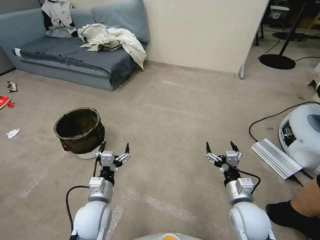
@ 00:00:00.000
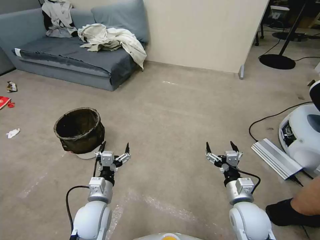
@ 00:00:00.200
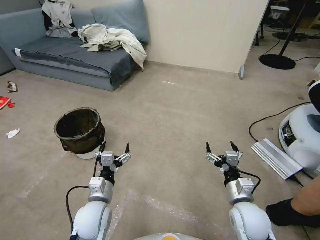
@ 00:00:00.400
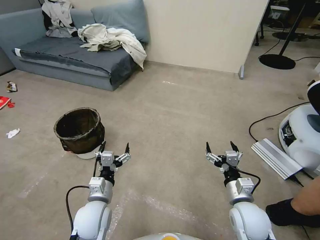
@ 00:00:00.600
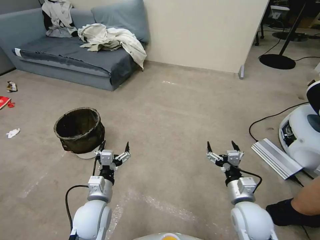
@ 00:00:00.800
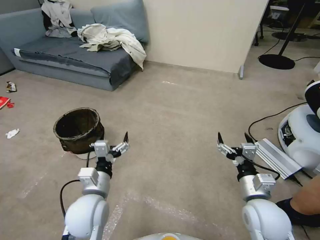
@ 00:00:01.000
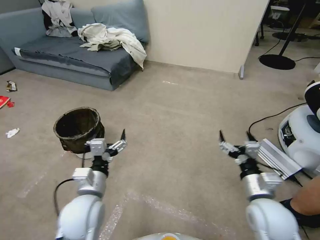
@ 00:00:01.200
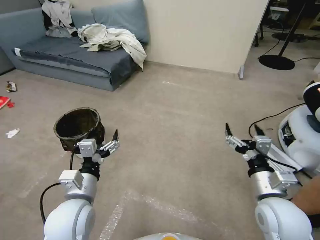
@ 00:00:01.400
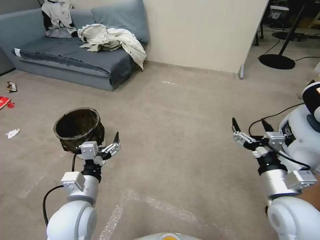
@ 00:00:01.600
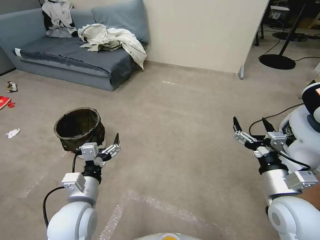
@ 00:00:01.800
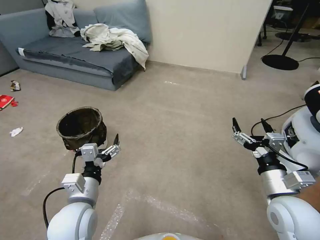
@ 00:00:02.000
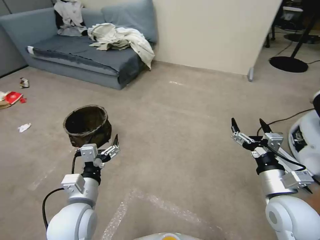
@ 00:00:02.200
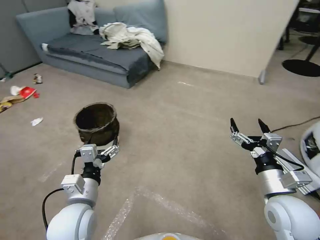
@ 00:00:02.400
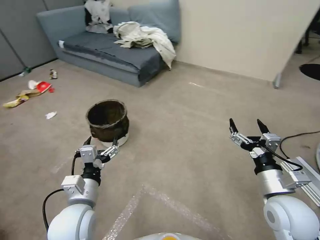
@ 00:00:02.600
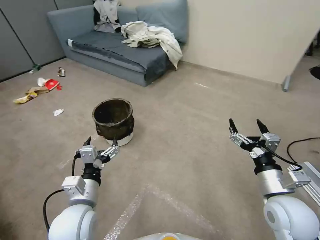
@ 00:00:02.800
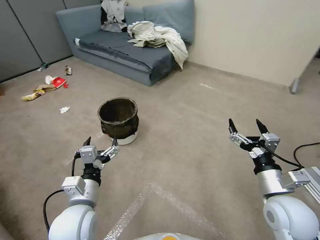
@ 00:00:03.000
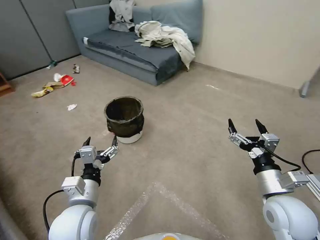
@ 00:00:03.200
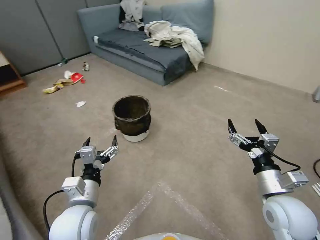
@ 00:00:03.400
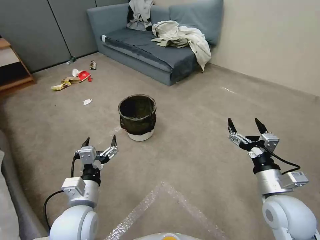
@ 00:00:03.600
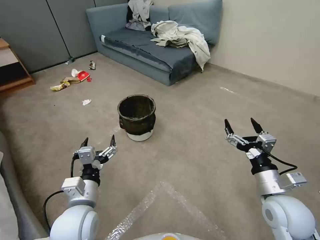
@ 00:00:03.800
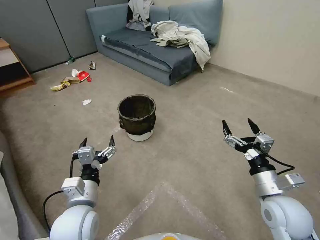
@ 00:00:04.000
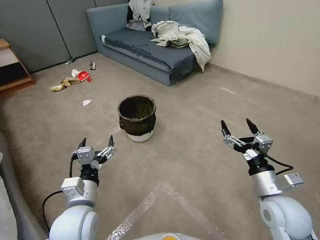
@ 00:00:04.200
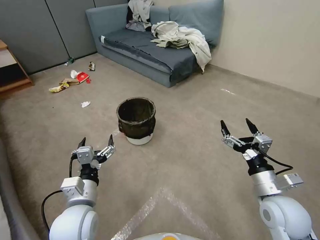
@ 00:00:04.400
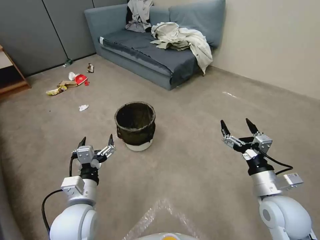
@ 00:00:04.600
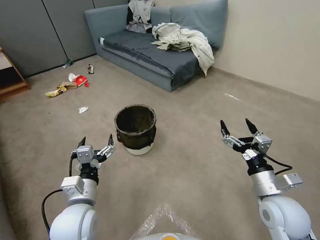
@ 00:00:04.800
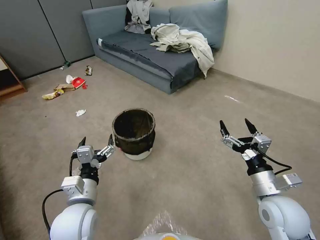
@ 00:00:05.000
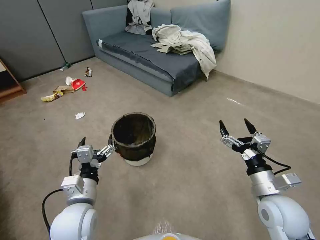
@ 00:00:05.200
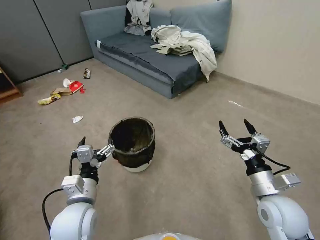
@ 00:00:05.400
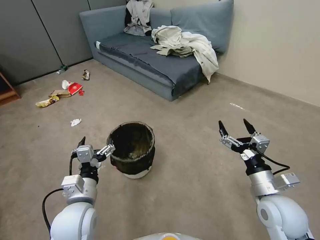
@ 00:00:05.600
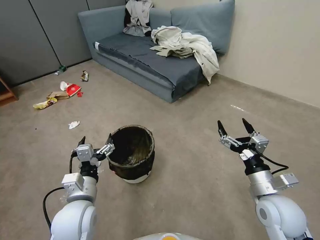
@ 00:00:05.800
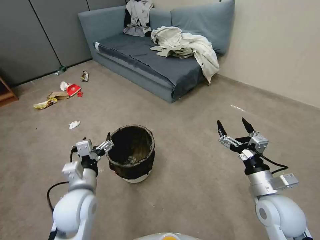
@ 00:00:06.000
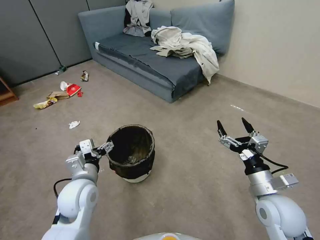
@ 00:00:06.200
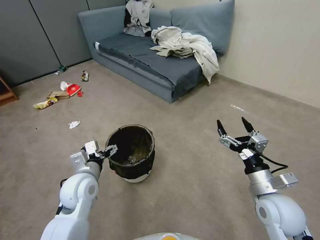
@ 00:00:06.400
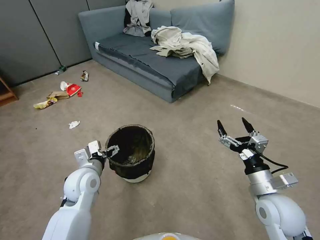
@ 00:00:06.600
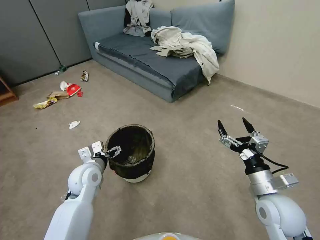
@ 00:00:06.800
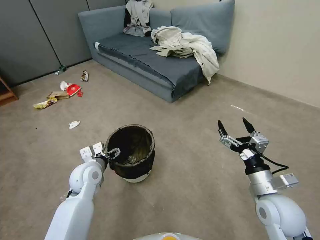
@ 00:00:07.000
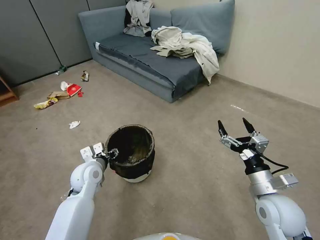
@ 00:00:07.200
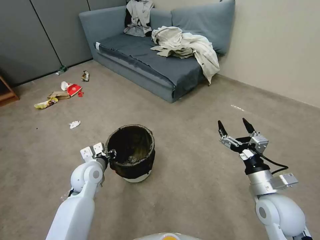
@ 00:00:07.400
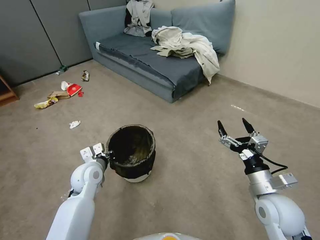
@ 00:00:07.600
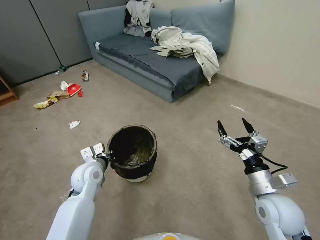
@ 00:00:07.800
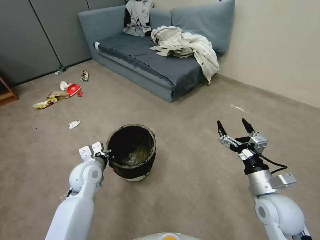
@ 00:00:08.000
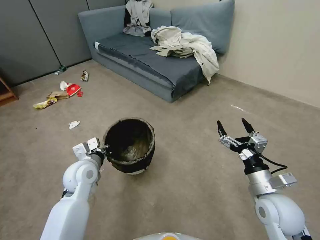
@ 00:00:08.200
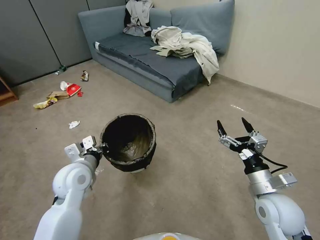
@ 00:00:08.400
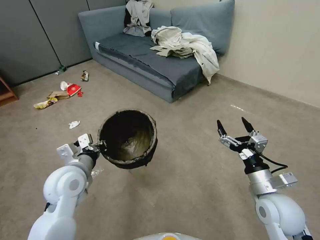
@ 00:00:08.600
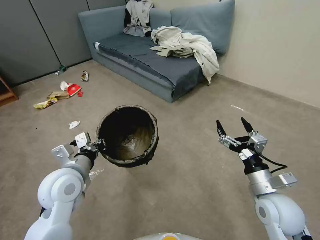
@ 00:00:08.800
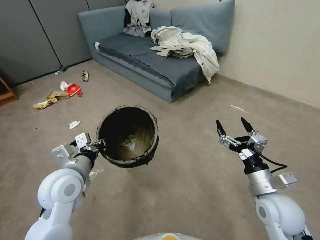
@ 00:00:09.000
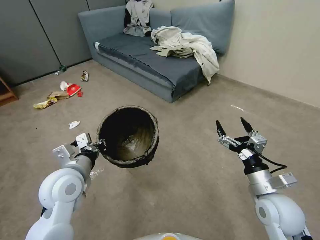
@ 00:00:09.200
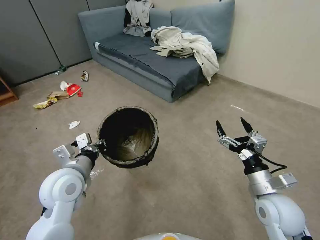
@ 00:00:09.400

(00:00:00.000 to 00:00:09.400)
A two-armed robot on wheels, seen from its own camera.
Task of the whole recording: Pick up the trash can from the floor.
00:00:04.800 - 00:00:06.200: The left gripper moves forward, some 5 cm.
00:00:06.200 - 00:00:07.800: The left gripper moves forward, about 5 cm, and closes.
00:00:07.800 - 00:00:09.400: The left gripper travels upward and backward by about 15 cm.
